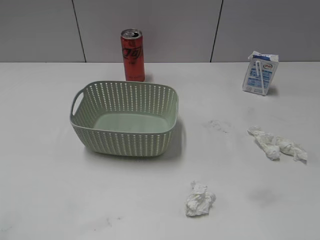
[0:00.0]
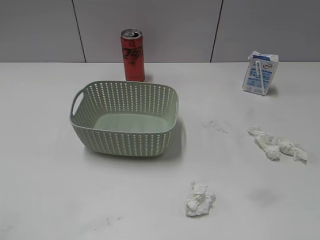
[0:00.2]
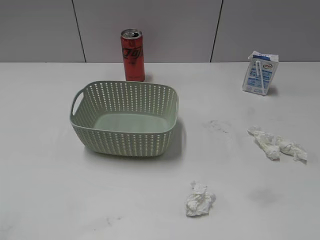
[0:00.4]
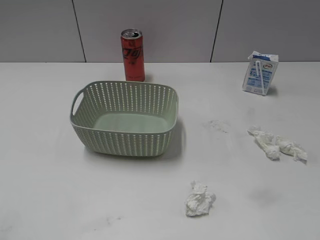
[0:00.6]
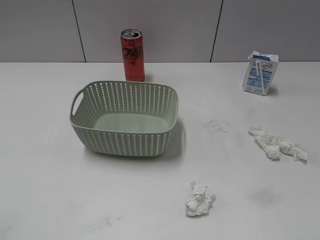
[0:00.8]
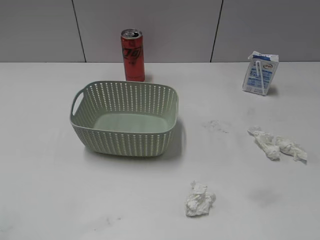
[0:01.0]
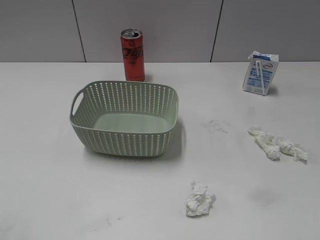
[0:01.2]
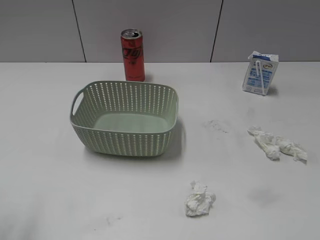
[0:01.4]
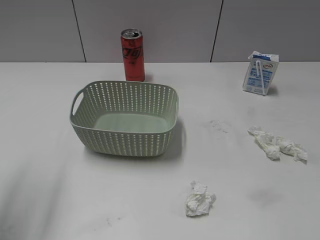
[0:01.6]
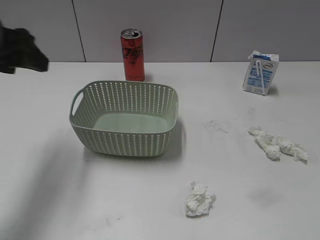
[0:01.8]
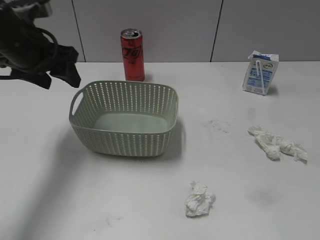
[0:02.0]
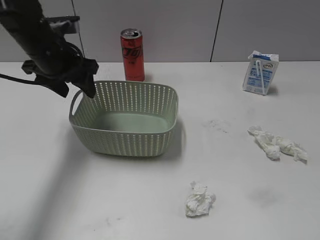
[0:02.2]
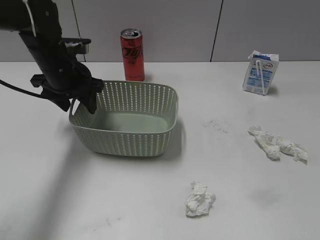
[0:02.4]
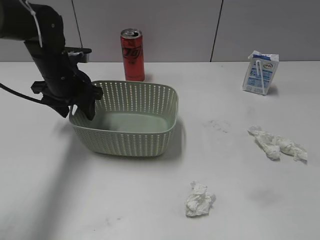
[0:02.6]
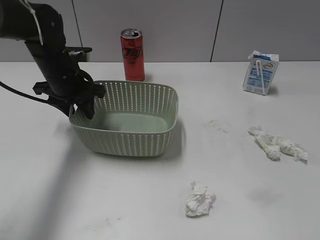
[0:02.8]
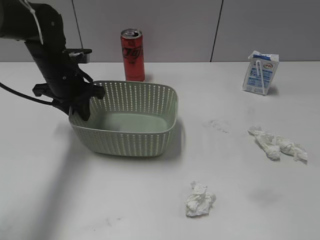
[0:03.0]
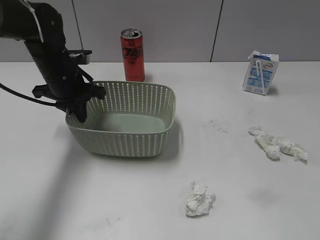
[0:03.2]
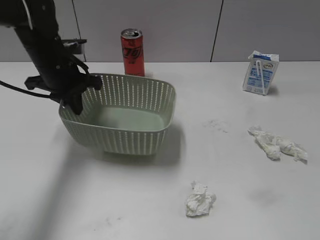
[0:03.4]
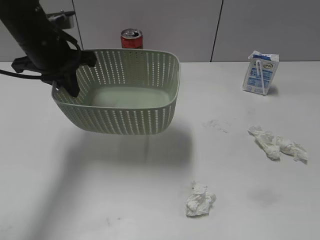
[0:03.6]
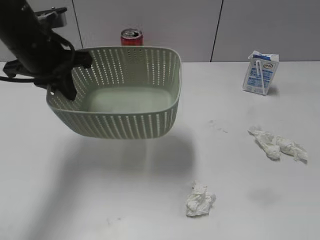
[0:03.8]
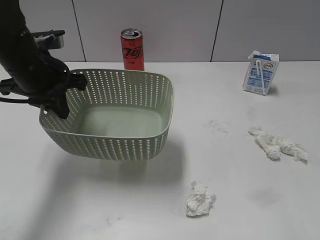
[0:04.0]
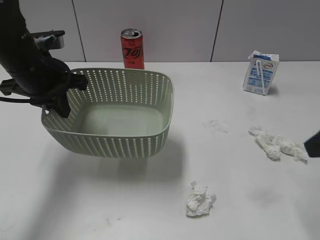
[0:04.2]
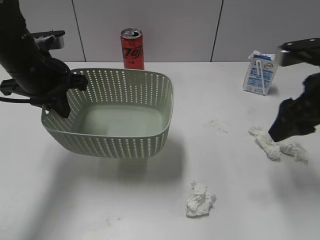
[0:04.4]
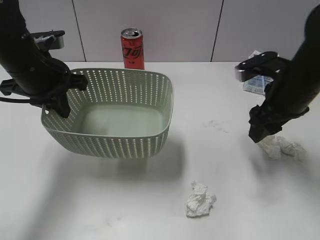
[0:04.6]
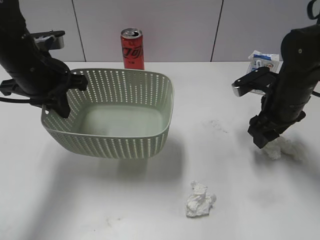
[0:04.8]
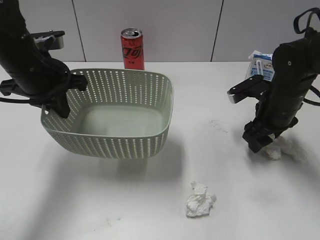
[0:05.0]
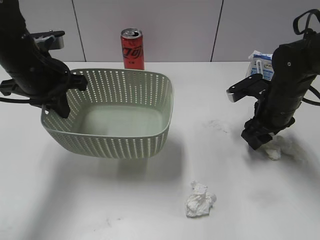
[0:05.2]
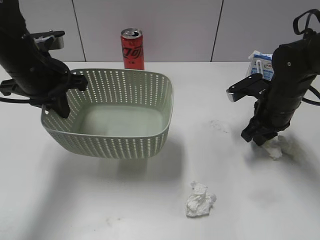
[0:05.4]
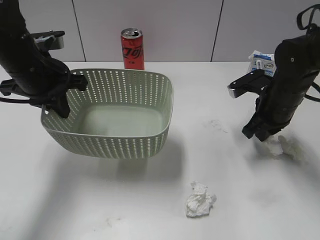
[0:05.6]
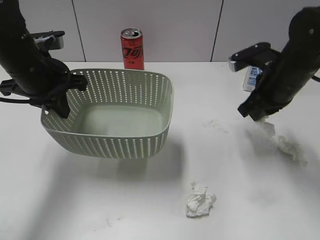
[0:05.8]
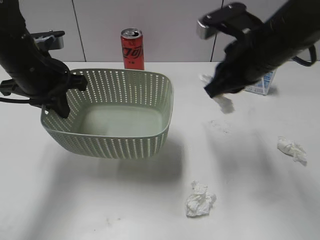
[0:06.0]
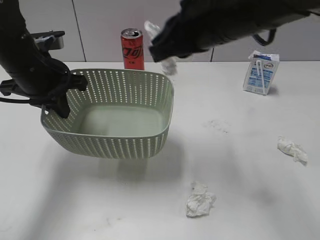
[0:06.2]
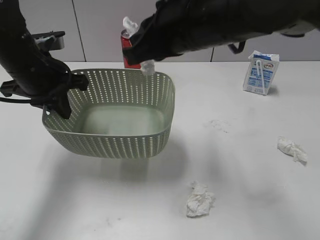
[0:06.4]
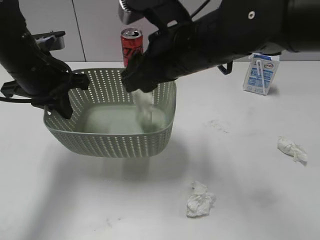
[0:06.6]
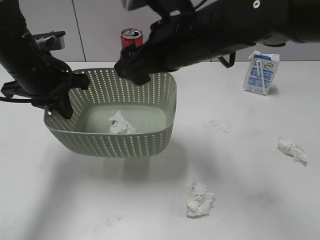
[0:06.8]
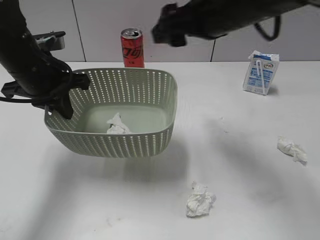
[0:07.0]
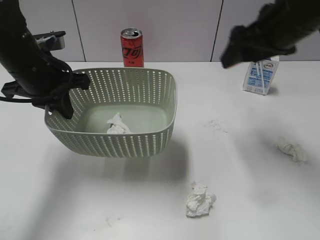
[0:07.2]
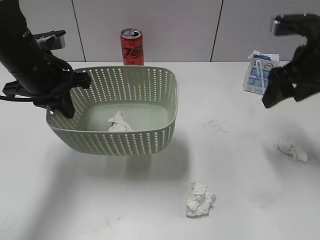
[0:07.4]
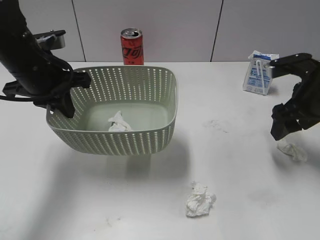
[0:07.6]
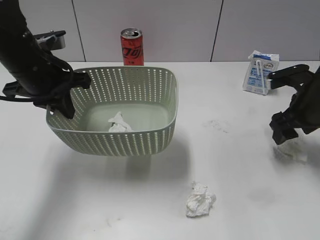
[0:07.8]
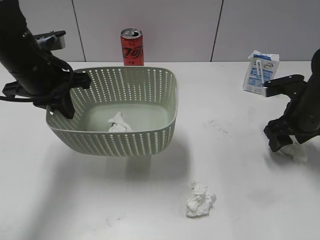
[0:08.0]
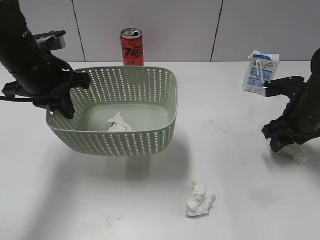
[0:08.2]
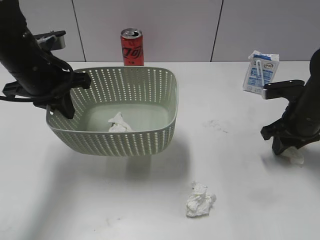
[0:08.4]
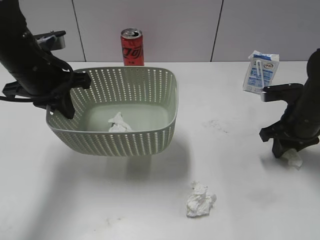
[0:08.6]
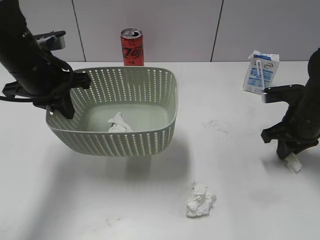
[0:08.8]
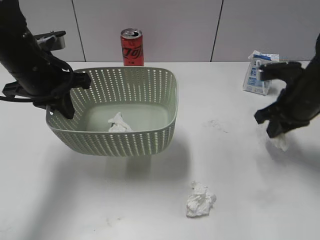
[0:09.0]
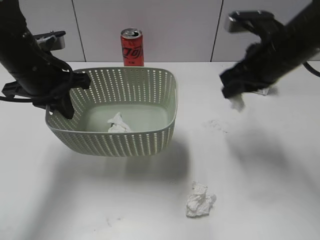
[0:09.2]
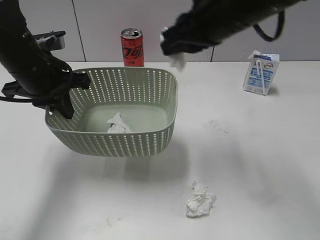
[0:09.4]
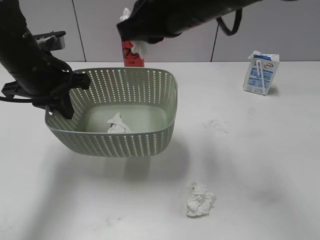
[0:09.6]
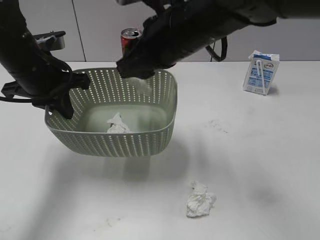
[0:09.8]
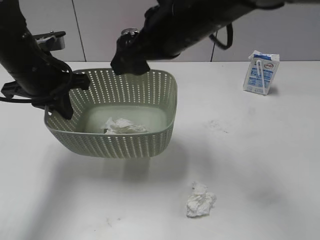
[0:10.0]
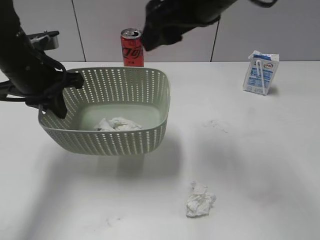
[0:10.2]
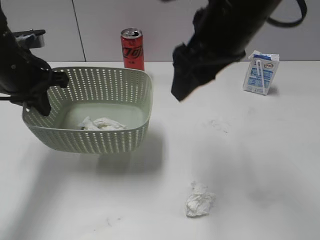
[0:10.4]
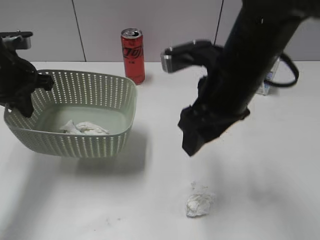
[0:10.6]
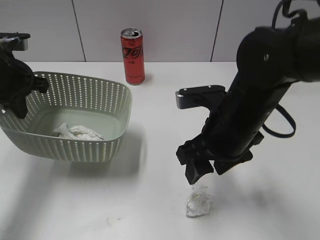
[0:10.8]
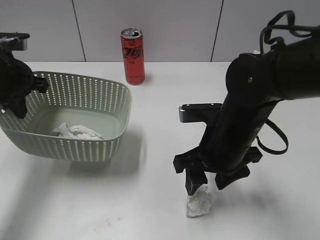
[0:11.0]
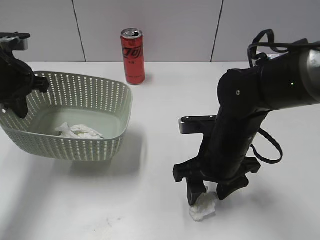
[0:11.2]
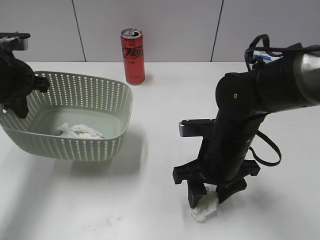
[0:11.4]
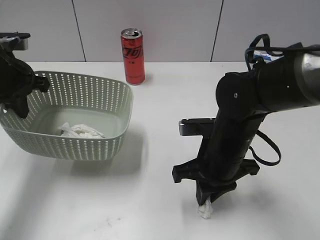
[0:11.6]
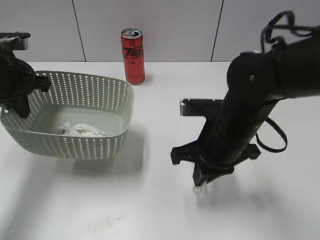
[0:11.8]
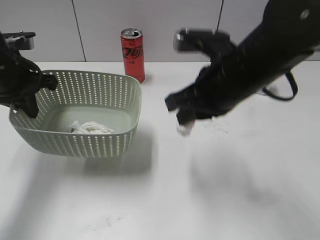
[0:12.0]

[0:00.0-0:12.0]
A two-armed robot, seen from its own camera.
Step, 0:01.6 to 0:03.2: Grasp the basket with left gripper.
Step, 0:03.4 to 0:03.6: Lift the basket with left gripper.
Step, 0:03.8 to 0:05.6: Grasp the waste paper with right gripper.
Step, 0:05.8 to 0:06.8: Place the waste paper in the basket with right gripper.
Step, 0:07.0 to 0:08.8: Grasp the waste paper with right gripper.
Step, 0:09.0 to 0:10.0: Place the waste paper in the basket with right gripper.
Step, 0:10.2 to 0:12.0: Grasp the waste paper with right gripper.
0:01.6 to 0:03.0: The left gripper goes approximately 30 cm forward, downward and to the right, and closes up.
0:03.0 to 0:04.4: The right gripper shifts roughly 25 cm forward. The left gripper heads backward and upward, covering approximately 10 cm.
0:04.4 to 0:06.0: The right gripper moves to the left and forward, approximately 10 cm, goes downward and returns, approximately 10 cm each way, and closes its fingers.
0:06.0 to 0:07.6: The right gripper shifts roughly 10 cm to the right and downward, and opens.
0:07.6 to 0:09.0: The right gripper closes up.
0:09.0 to 0:10.4: The right gripper goes roughly 20 cm to the left and upward, and opens its fingers.
0:10.4 to 0:12.0: The right gripper travels downward by some 10 cm, and closes.

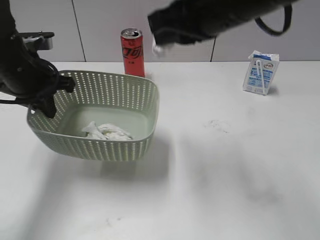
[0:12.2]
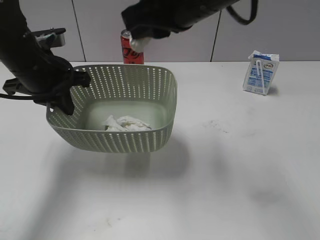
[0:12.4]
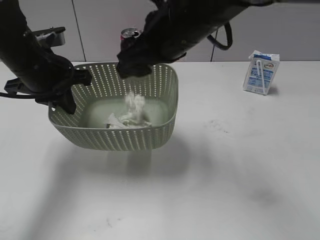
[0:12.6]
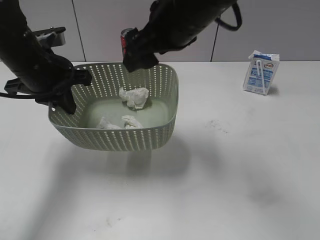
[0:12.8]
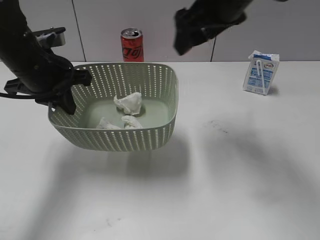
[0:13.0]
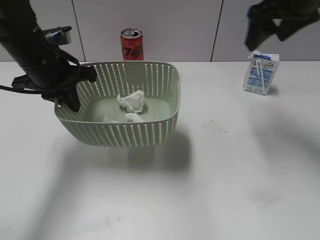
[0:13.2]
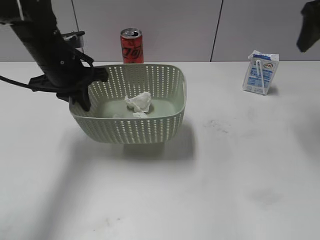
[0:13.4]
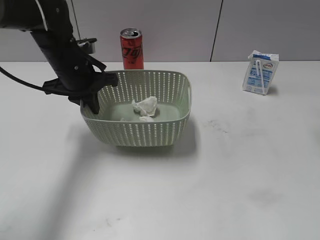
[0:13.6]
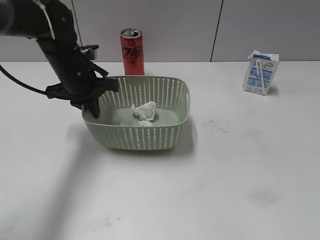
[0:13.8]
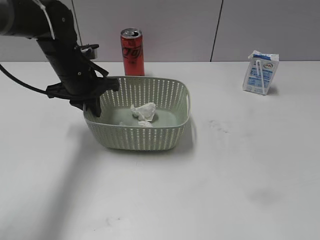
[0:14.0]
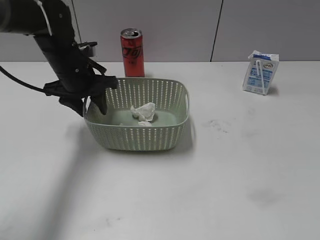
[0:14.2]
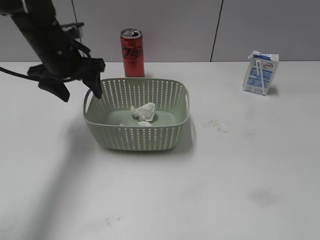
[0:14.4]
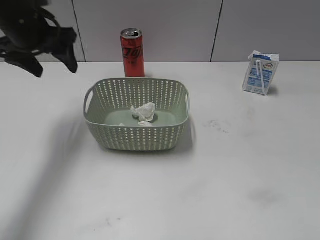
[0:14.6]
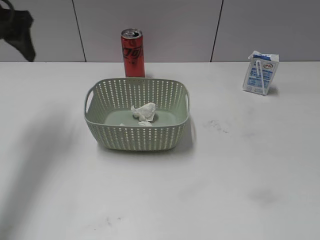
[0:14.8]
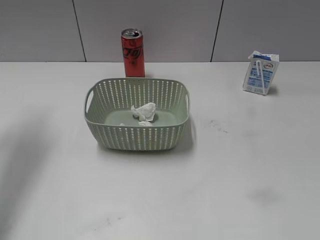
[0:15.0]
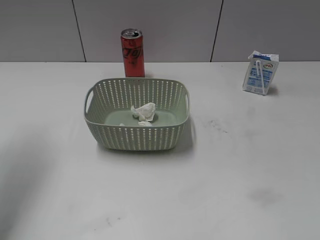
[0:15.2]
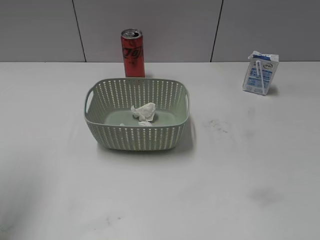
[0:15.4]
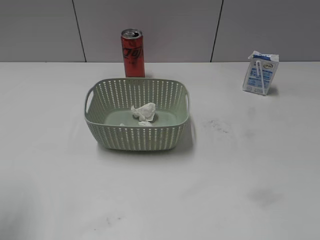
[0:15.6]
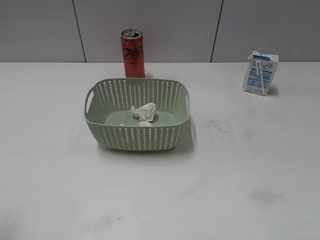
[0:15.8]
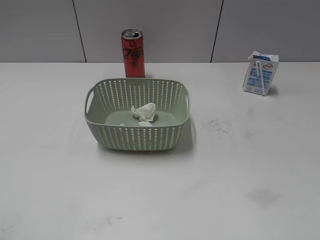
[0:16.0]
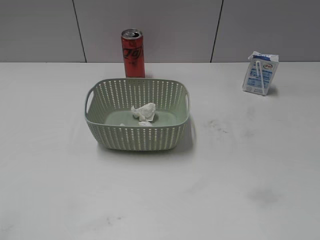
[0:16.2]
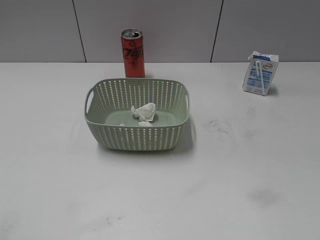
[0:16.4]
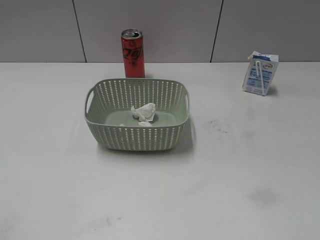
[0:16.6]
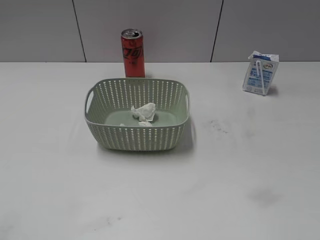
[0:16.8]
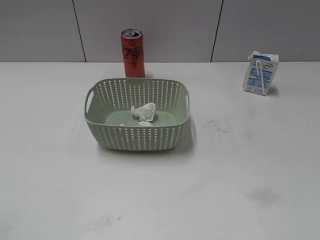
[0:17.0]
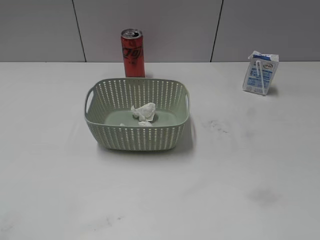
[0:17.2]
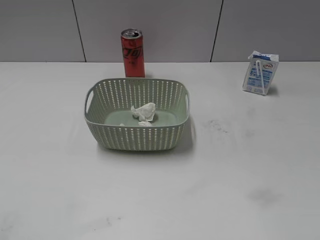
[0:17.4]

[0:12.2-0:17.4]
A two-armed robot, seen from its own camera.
Step, 0:12.2 to 0:12.8: Place the waste paper in the basket with right gripper.
Step, 0:13.0 to 0:14.2: Place the basket on the table with left gripper.
0:12.2 to 0:14.0: The left gripper goes roughly 10 cm to the right, forward and downward. Meanwhile the right gripper heads to the right, covering about 25 cm, and opens its fingers.
0:14.0 to 0:15.6: The left gripper is displaced backward, upward and to the left by roughly 30 cm, and opens its fingers; the right gripper is displaced backward by roughly 25 cm.
0:15.6 to 0:17.4: The left gripper travels backward by approximately 20 cm.

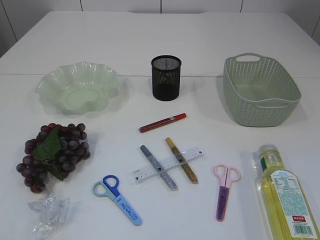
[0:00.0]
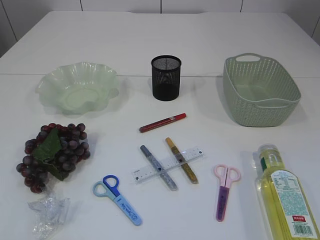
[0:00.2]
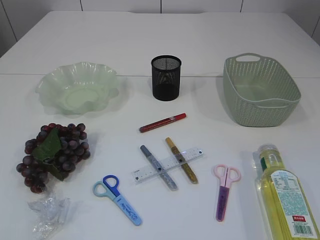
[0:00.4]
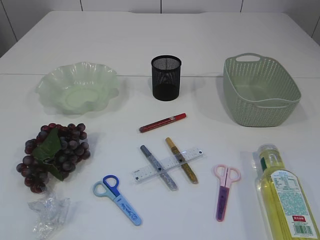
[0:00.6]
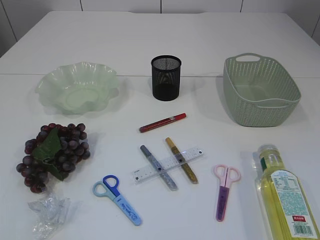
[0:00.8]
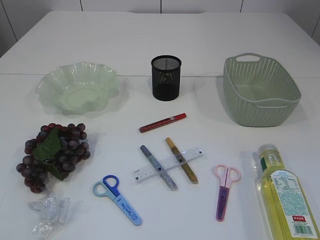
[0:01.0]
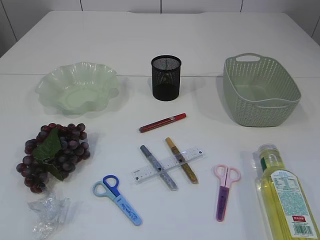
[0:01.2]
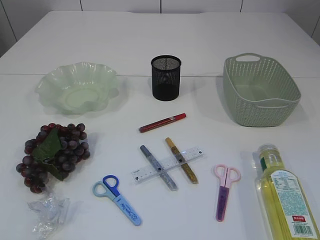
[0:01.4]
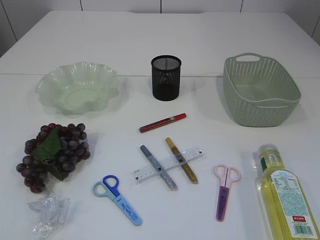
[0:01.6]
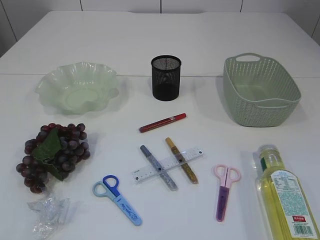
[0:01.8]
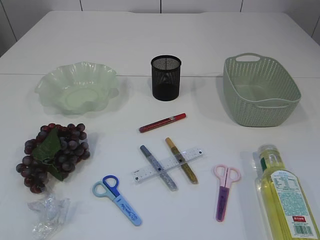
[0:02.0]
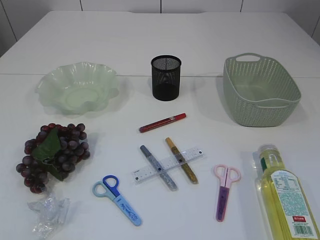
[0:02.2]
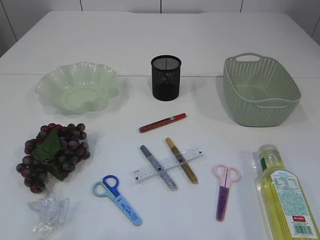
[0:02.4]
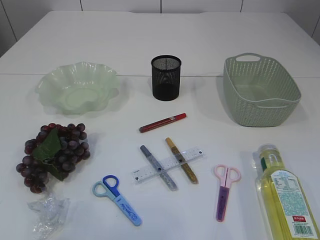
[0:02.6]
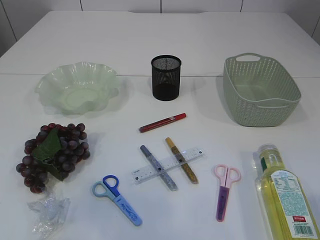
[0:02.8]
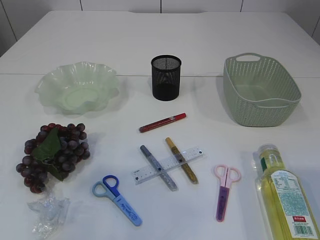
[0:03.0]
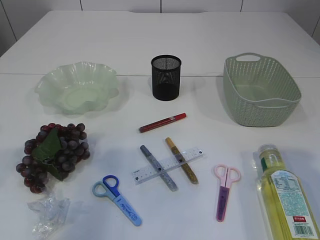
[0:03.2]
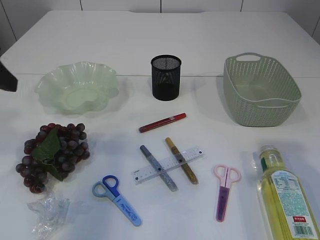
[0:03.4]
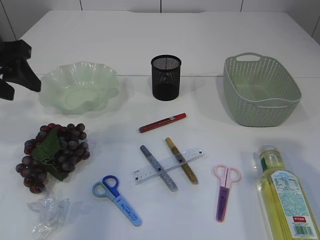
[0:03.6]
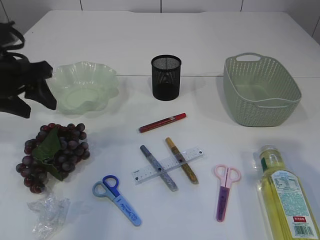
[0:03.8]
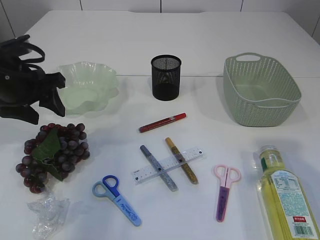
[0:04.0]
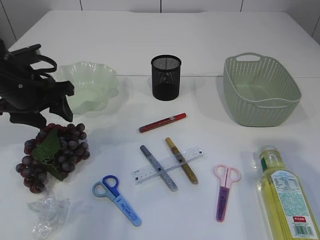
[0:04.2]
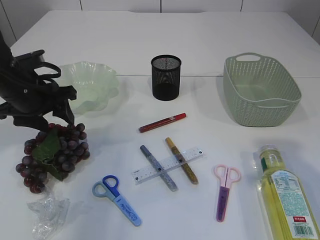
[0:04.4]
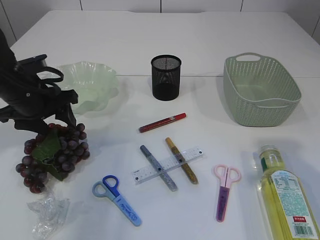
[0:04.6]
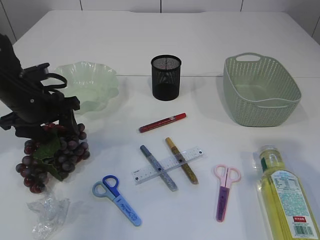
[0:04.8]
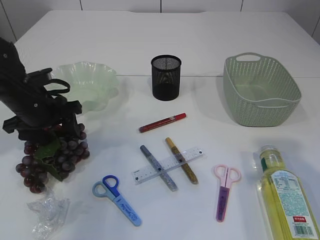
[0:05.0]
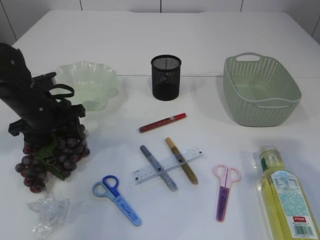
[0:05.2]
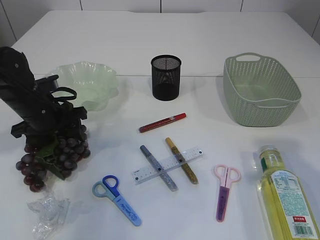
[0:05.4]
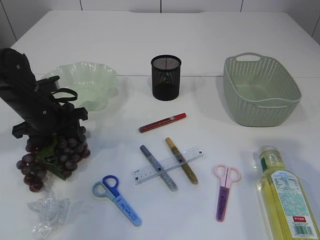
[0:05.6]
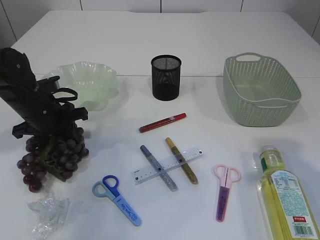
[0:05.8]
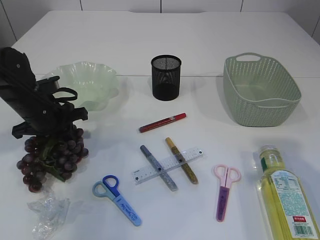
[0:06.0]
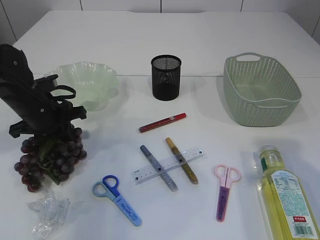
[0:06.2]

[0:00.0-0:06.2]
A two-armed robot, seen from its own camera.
0:01.6 to 0:03.2: The right gripper is displaced forward and upward by roughly 15 cm, while the left gripper moves forward, some 20 cm.
0:03.2 to 0:04.6: The left gripper moves forward and downward, approximately 20 cm.
0:04.6 to 0:06.2: The left gripper closes.
